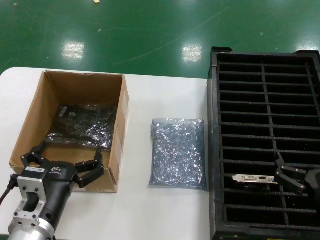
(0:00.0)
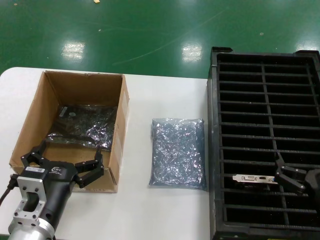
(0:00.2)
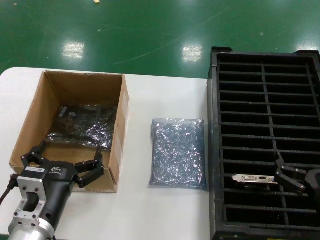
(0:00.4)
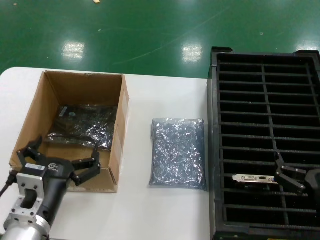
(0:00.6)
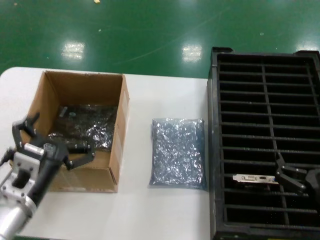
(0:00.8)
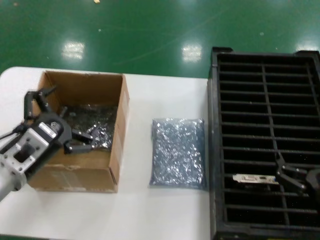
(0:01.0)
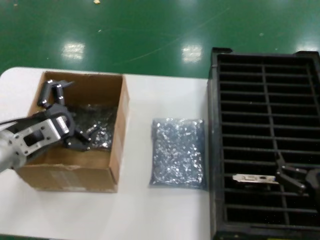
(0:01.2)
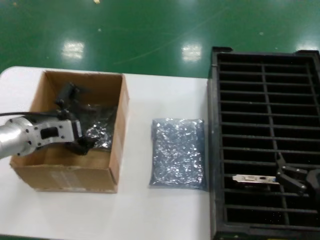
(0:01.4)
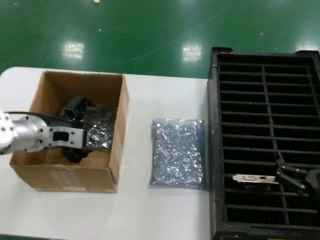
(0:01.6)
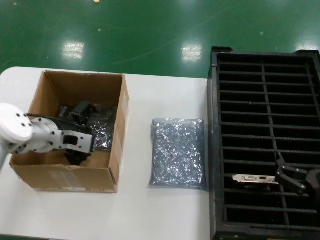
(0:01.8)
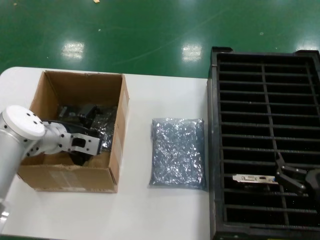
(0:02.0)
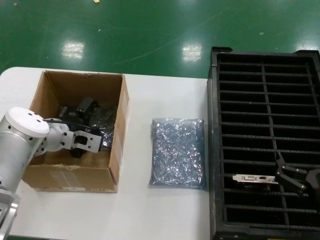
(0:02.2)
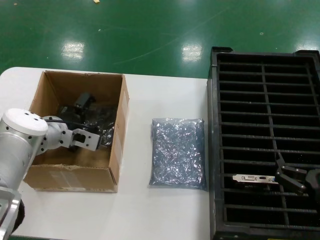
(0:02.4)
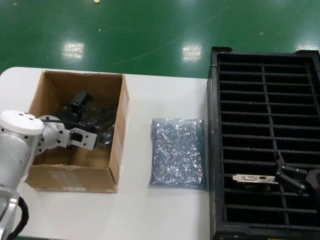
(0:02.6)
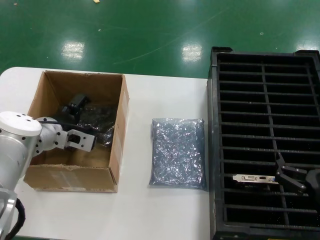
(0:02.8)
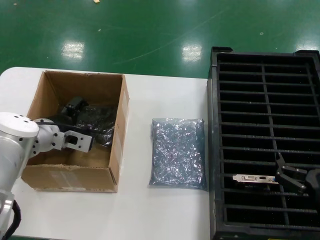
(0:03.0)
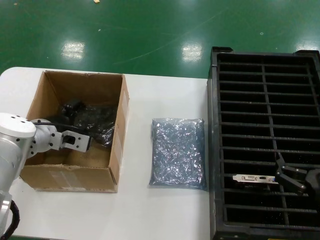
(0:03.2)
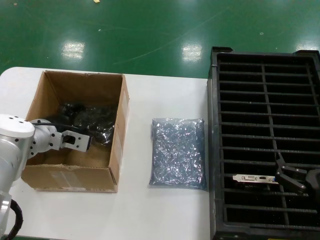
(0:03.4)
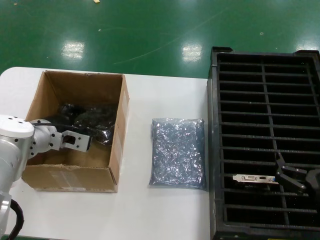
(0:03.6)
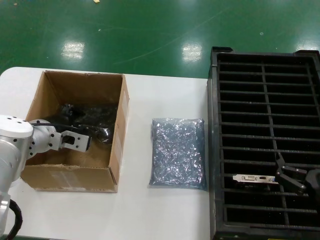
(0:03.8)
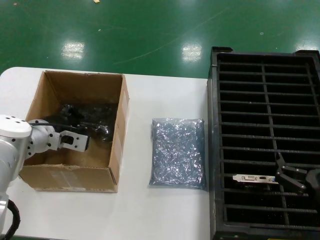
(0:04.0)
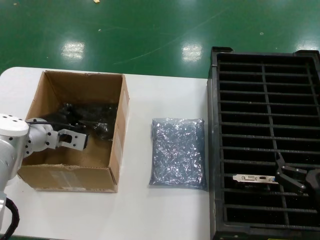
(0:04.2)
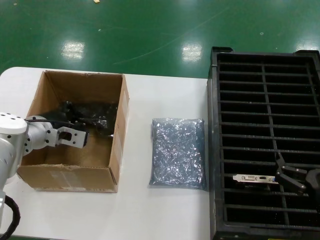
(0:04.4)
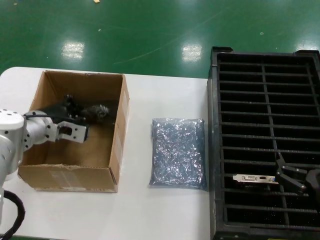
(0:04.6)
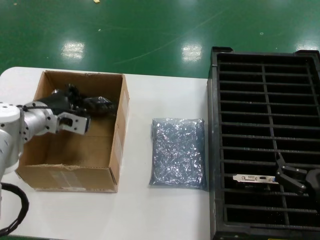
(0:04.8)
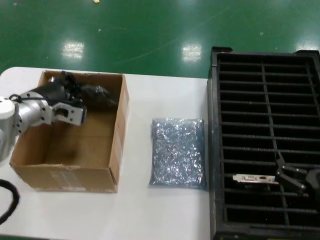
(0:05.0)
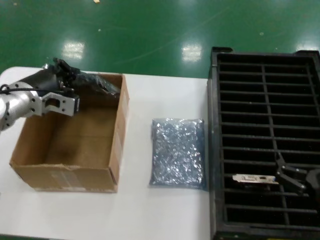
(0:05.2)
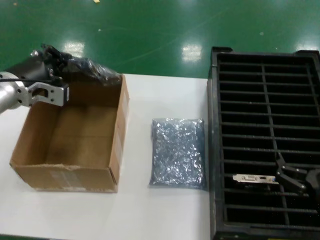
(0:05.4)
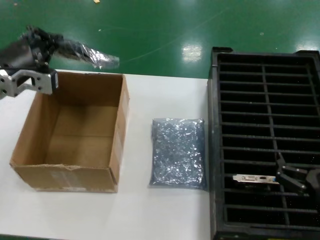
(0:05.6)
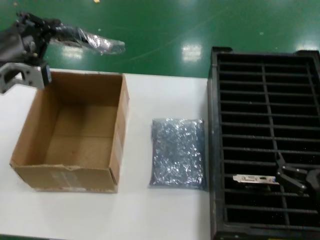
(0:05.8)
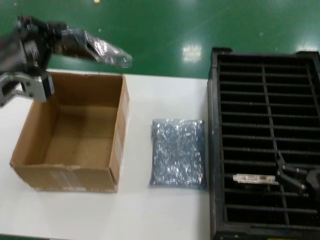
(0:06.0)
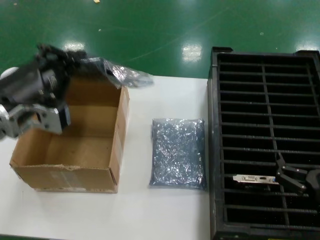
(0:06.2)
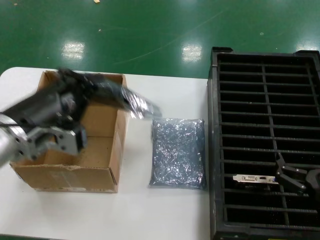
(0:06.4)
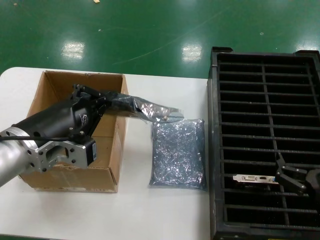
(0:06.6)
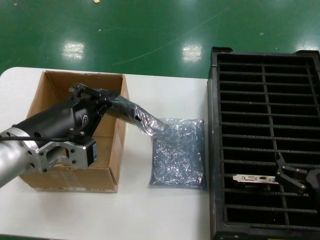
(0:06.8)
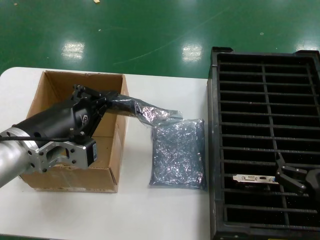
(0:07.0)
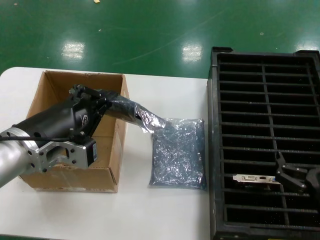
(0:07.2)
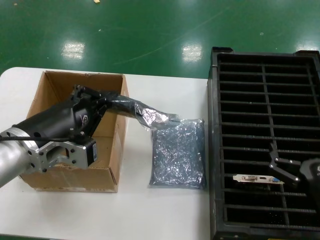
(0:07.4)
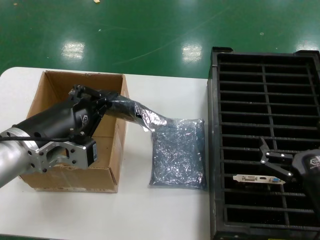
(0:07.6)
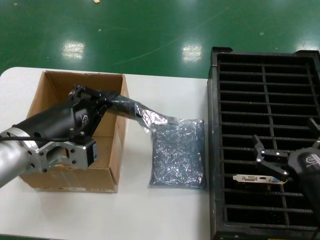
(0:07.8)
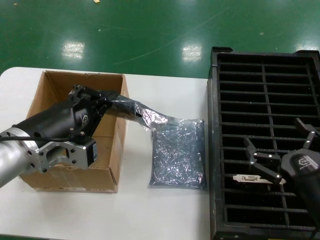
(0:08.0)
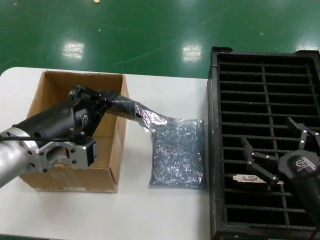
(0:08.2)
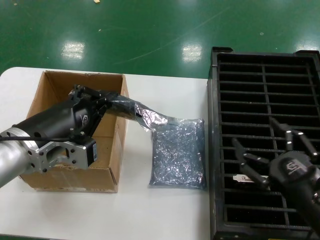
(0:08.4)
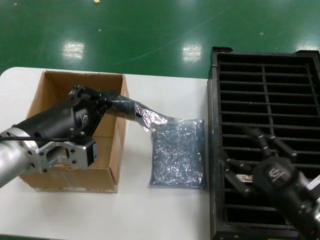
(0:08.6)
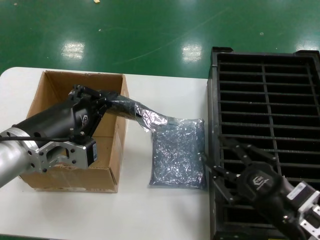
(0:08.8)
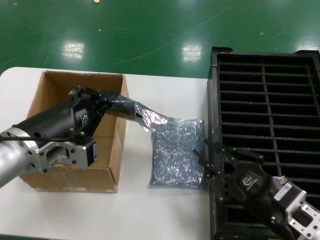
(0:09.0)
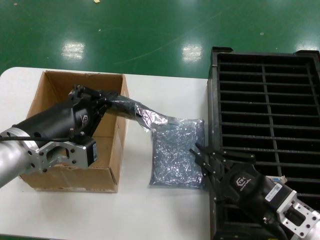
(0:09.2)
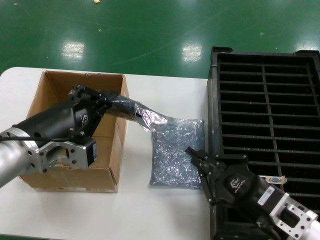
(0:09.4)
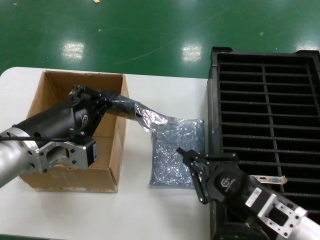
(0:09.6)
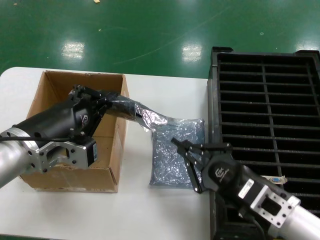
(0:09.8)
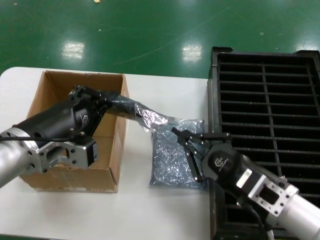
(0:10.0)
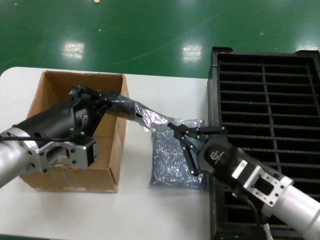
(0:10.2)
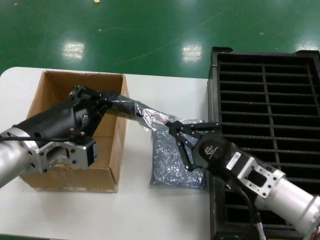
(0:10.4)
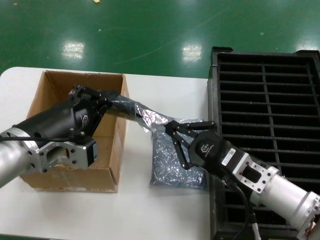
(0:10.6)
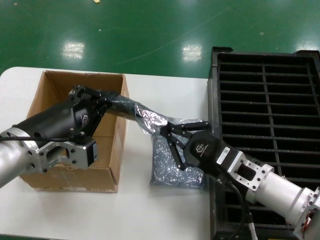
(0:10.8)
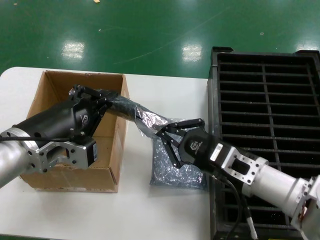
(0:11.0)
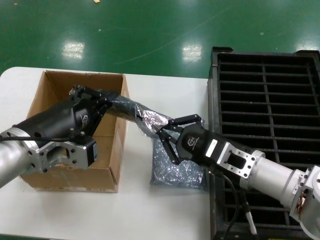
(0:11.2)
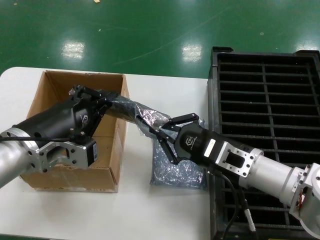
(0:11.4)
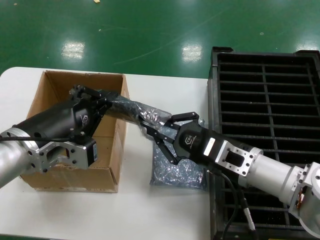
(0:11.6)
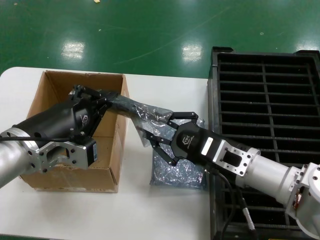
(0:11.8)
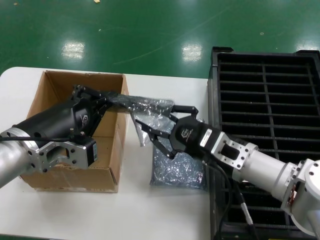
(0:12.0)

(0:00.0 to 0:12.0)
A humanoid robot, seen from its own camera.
Task of the whole recording: take out graphics card from box remove packaging put into black container.
Step, 0:00.0 - 0:04.2: Grasp the bag.
Step, 0:04.6 - 0:07.0: Lift the bag.
0:00.0 - 0:01.6: The left hand goes some 25 cm forward, upward and to the left.
0:01.6 - 0:03.0: The left hand moves roughly 5 cm.
0:03.0 - 0:04.4: There are only small adjustments of the hands.
0:04.4 - 0:06.0: The left hand heads upward and backward, covering approximately 20 cm.
0:06.0 - 0:07.6: The left hand goes roughly 10 cm downward and to the right.
0:09.0 - 0:10.4: The right hand shifts roughly 10 cm forward.
0:10.4 - 0:12.0: The right hand is displaced forward by some 5 cm.

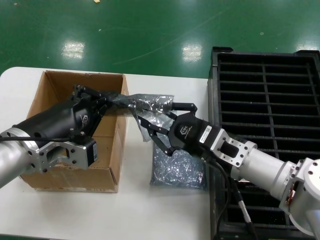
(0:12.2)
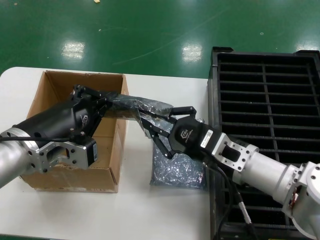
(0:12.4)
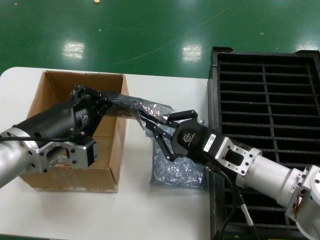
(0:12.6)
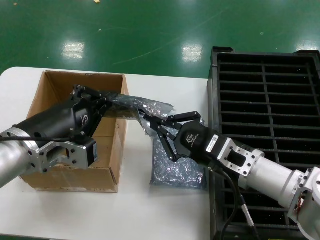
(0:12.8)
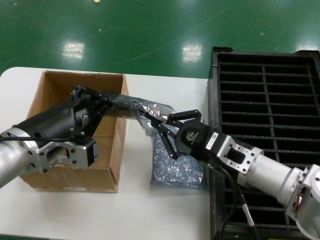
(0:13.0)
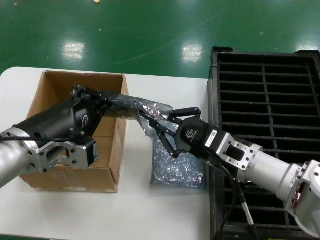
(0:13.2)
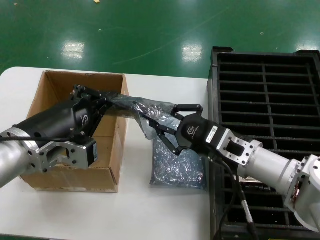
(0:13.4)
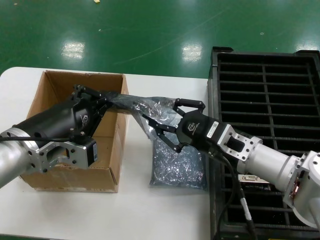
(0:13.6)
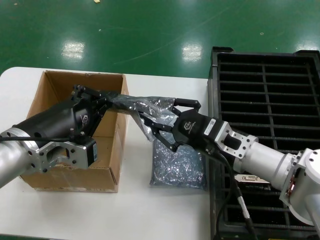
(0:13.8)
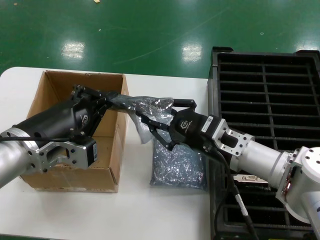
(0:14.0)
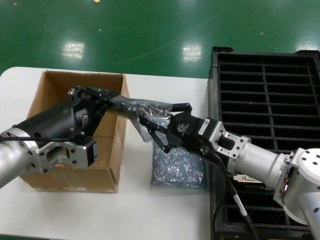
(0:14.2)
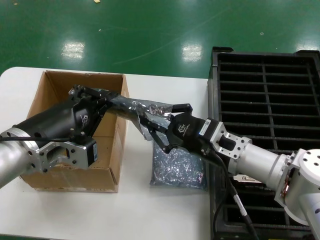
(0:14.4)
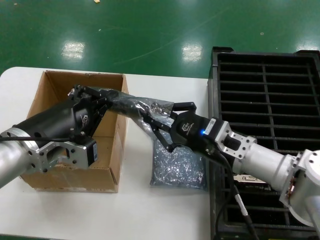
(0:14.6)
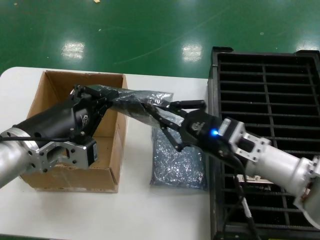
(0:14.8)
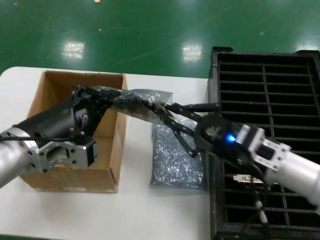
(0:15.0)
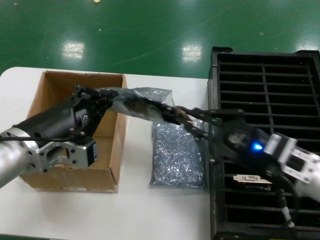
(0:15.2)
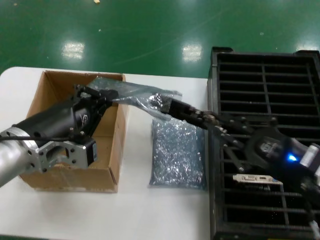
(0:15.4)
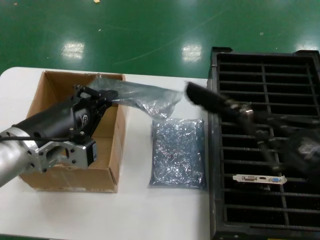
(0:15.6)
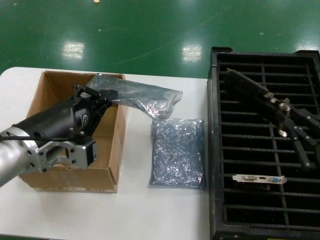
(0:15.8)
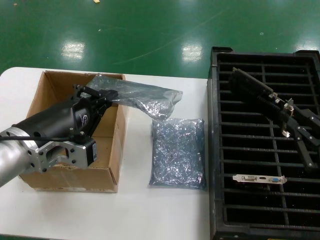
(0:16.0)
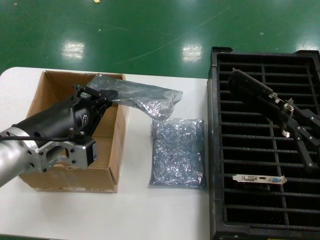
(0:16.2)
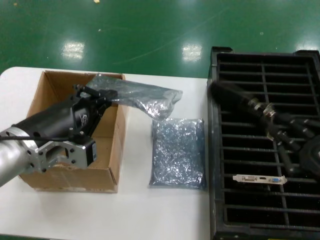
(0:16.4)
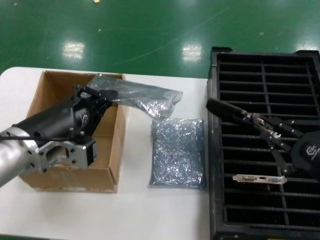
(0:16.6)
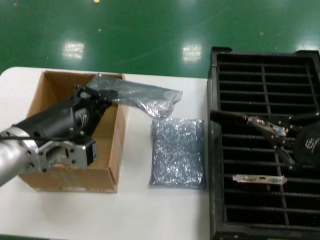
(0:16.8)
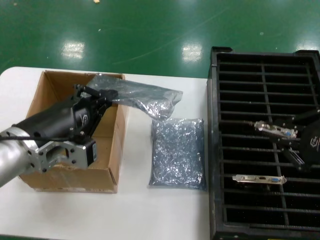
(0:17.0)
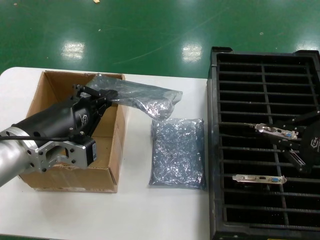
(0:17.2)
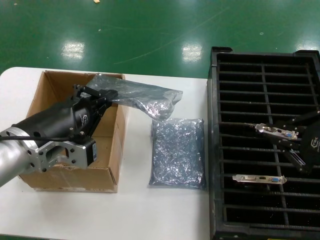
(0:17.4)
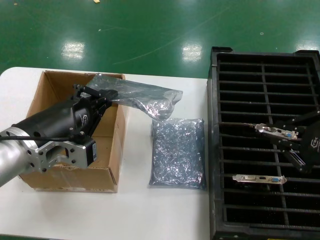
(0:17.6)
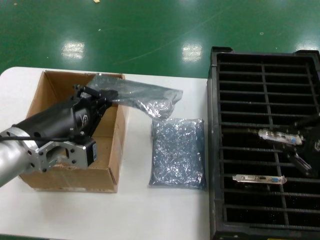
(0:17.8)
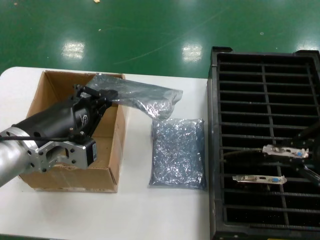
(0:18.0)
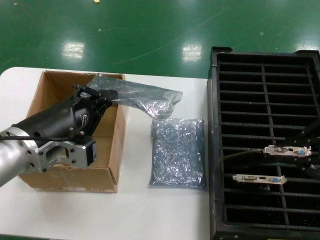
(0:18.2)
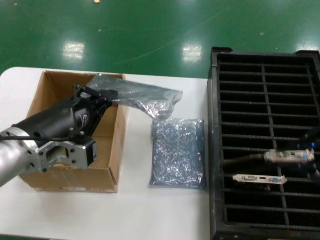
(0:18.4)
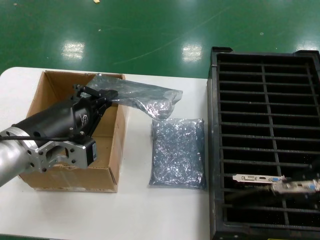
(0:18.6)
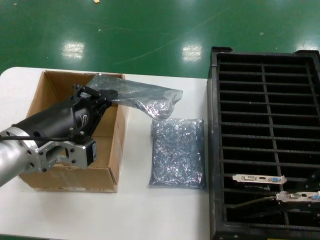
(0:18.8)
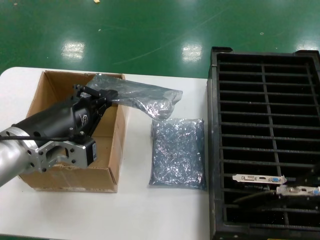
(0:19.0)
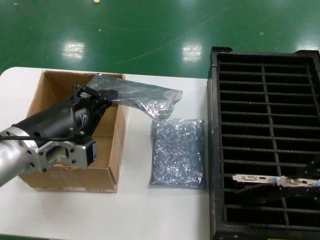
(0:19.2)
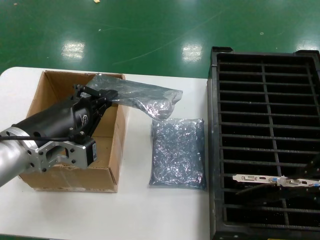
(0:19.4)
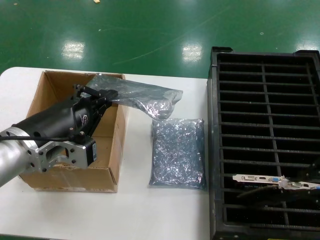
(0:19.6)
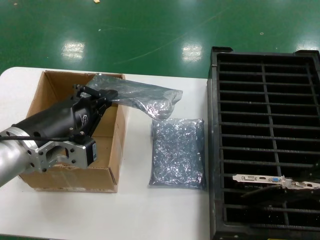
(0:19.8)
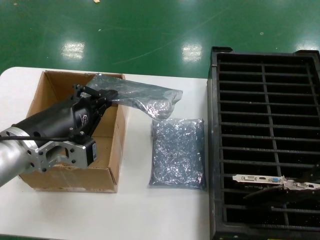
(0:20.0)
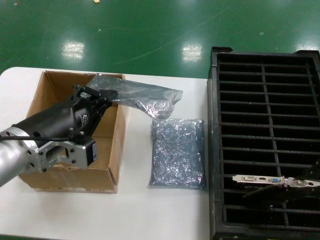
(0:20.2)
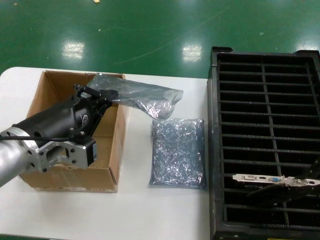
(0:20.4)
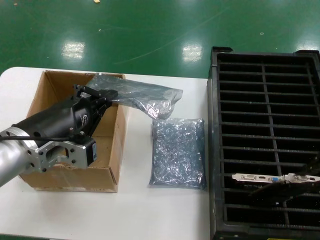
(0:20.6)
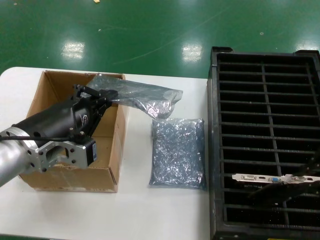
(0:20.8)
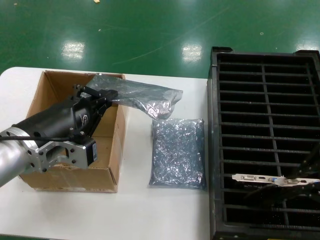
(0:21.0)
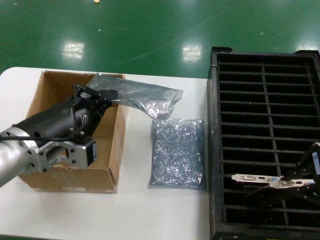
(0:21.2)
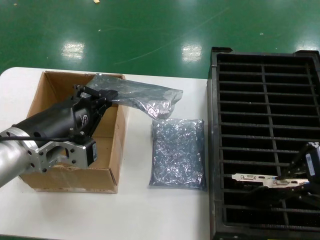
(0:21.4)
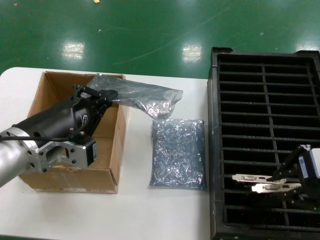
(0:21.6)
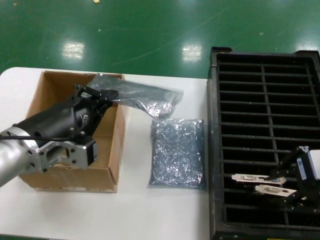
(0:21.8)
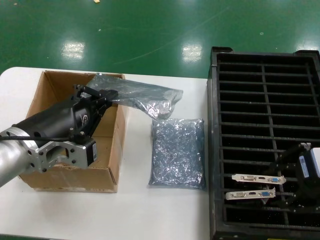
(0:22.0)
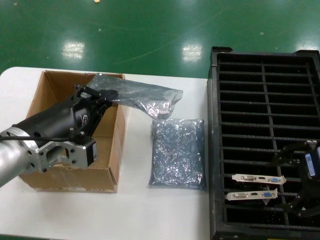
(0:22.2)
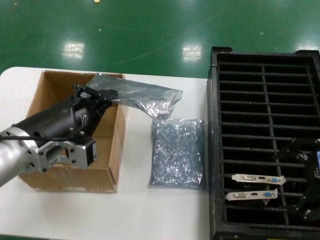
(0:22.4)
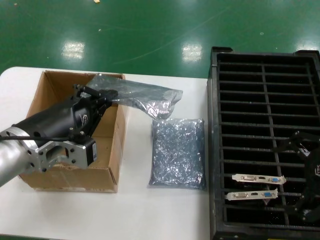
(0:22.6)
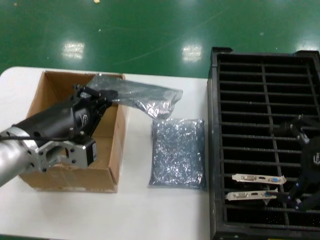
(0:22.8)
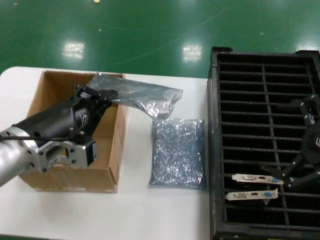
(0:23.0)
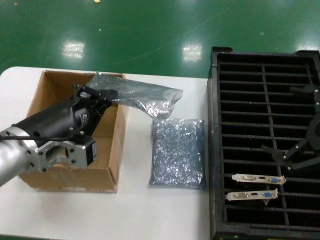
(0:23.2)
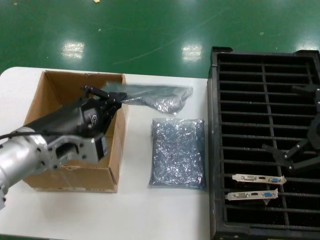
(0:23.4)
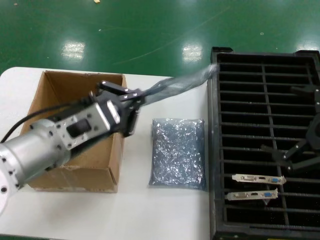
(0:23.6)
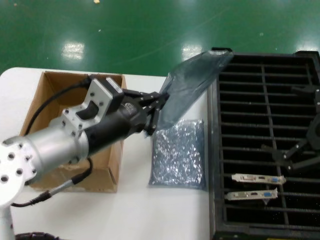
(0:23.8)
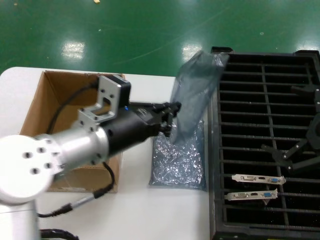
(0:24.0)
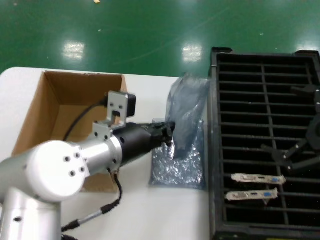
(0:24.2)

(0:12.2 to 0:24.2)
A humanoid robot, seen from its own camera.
Task of the whole recording: take out graphics card from box remove packaging put into black container.
Step, 0:12.2 - 0:15.6: Take out the hard disk of the bag.
Step, 0:15.8 - 0:22.4: Place the hard disk in the hard disk enclosure.
0:12.2 - 0:13.8: The hands move only a little.
0:13.8 - 0:15.2: The right hand is displaced backward and to the right by some 10 cm.
0:15.2 - 0:16.6: The right hand travels to the right and backward by about 10 cm.
0:16.6 - 0:18.2: The right hand moves upward, roughly 15 cm.
0:18.2 - 0:19.8: The hands stay close to where they were, moving slightly.
0:19.8 - 0:21.2: The right hand changes place by approximately 5 cm.
0:21.2 - 0:22.6: There are only small adjustments of the hands.
0:22.6 - 0:24.2: The left hand is displaced to the right and forward by approximately 10 cm. Meanwhile the right hand goes roughly 10 cm to the right and downward.
